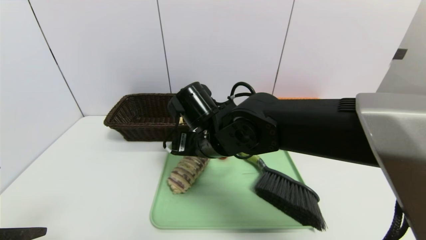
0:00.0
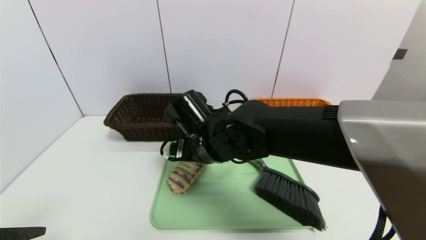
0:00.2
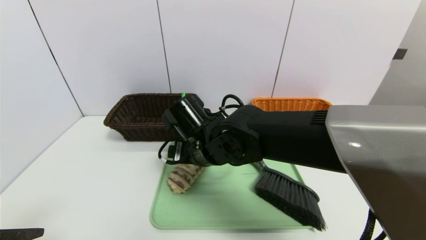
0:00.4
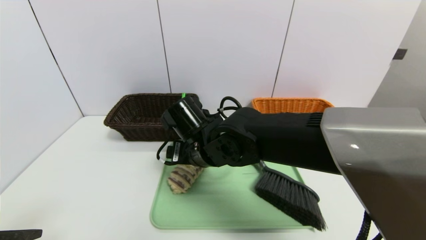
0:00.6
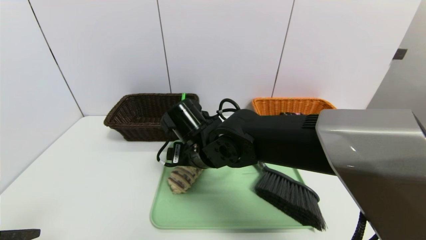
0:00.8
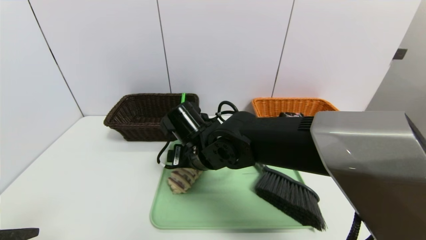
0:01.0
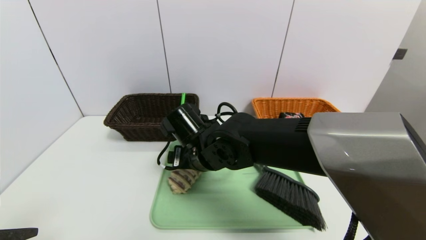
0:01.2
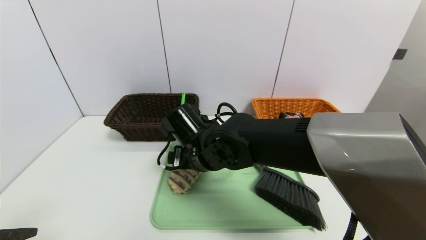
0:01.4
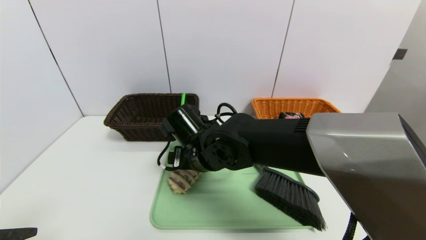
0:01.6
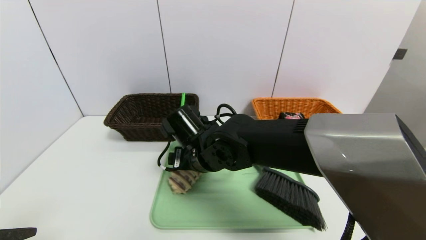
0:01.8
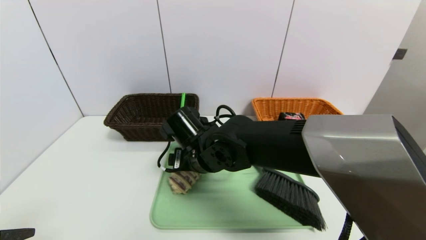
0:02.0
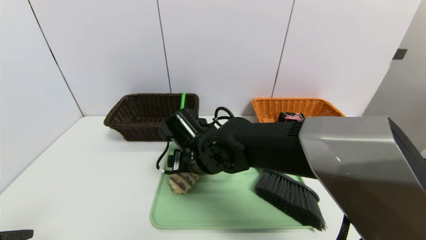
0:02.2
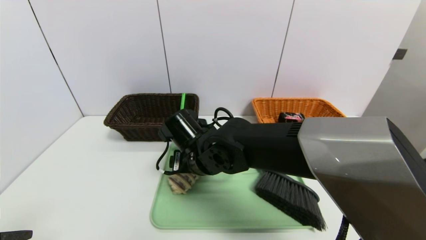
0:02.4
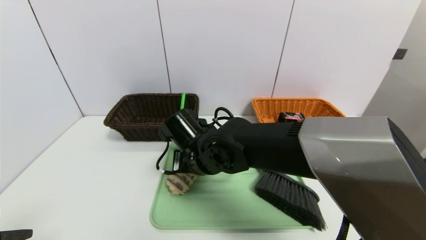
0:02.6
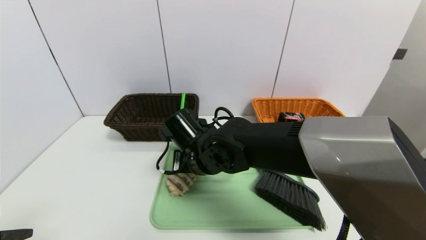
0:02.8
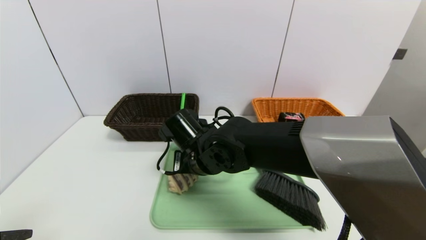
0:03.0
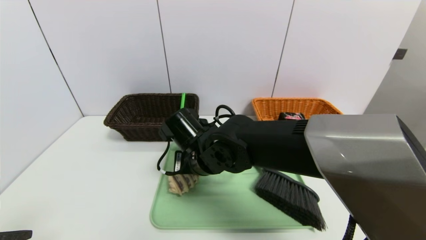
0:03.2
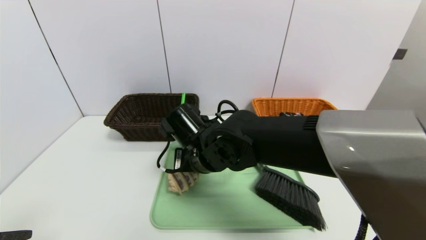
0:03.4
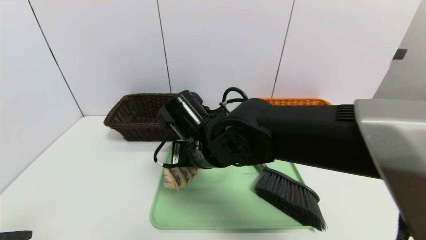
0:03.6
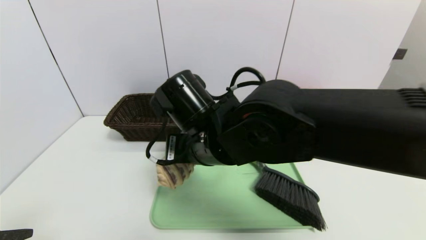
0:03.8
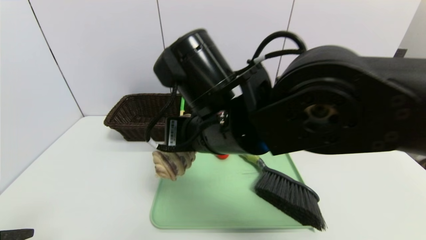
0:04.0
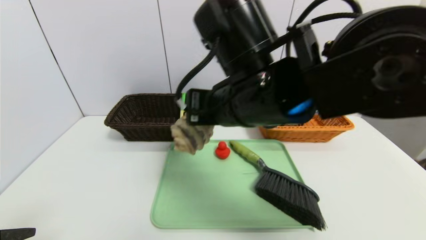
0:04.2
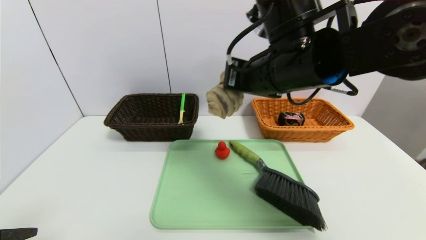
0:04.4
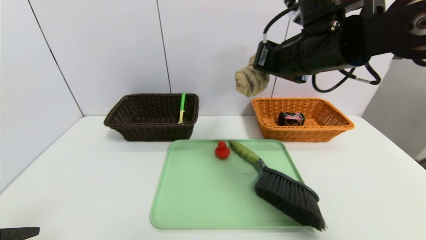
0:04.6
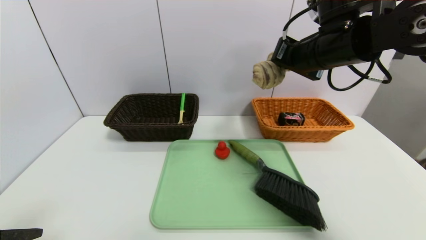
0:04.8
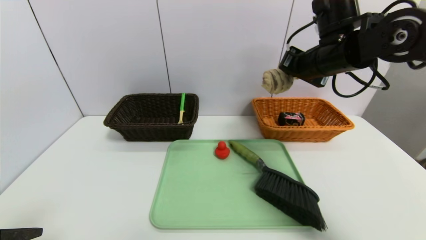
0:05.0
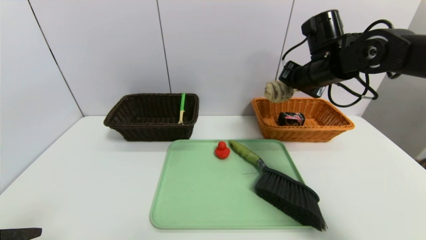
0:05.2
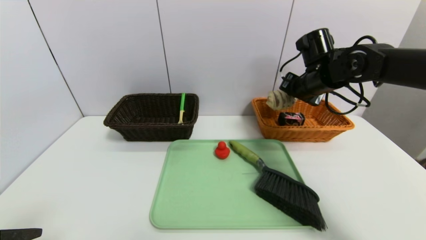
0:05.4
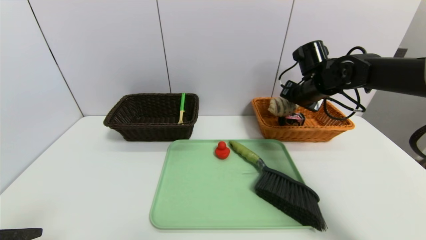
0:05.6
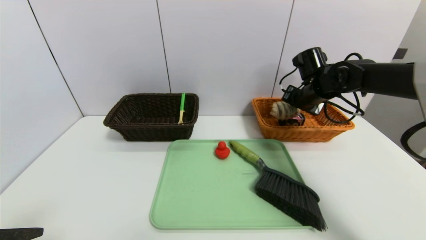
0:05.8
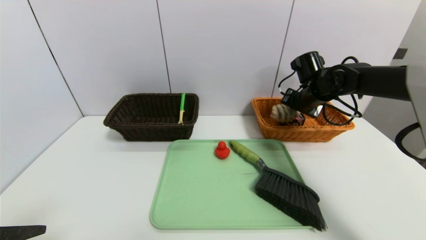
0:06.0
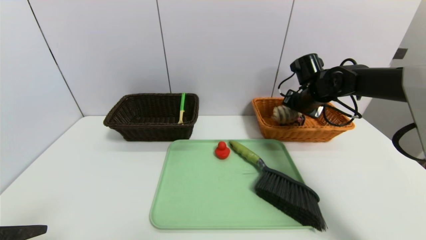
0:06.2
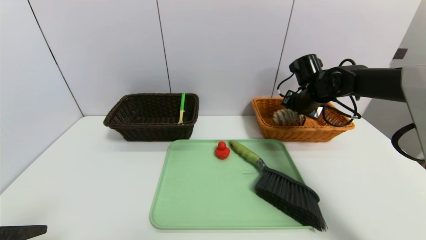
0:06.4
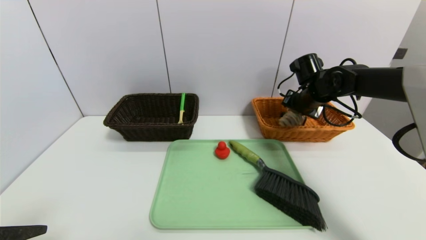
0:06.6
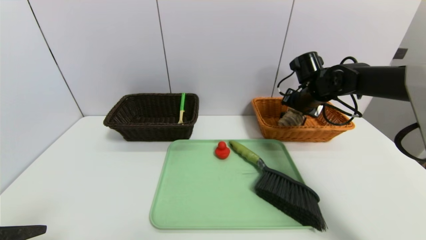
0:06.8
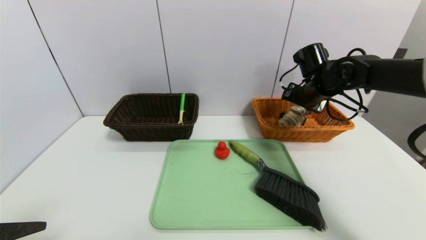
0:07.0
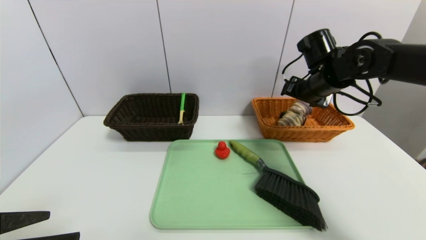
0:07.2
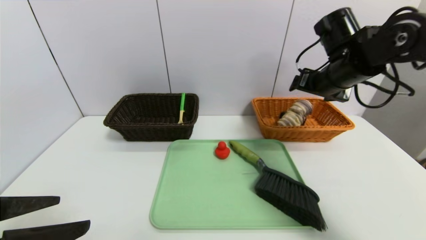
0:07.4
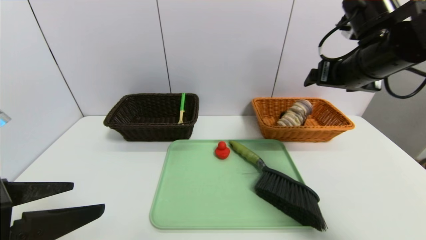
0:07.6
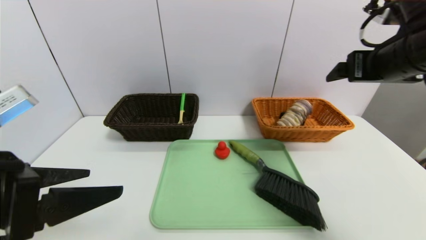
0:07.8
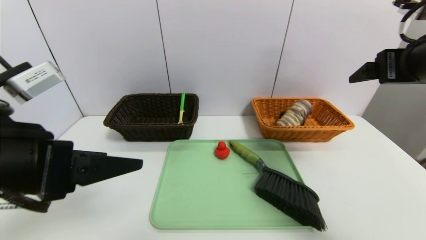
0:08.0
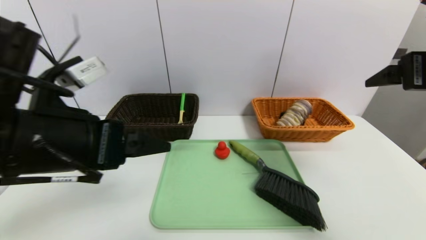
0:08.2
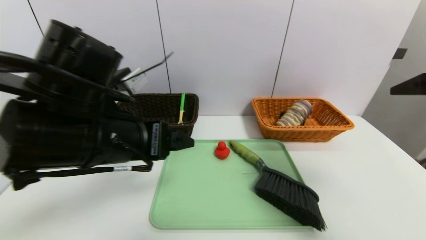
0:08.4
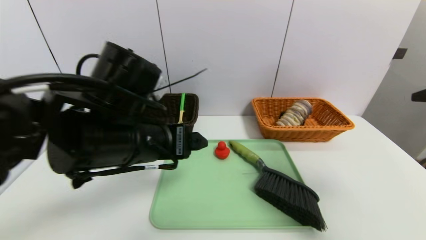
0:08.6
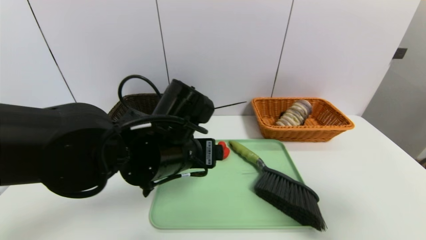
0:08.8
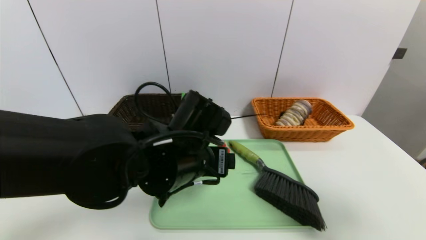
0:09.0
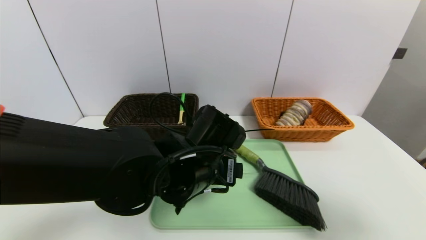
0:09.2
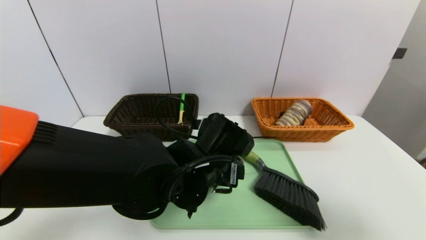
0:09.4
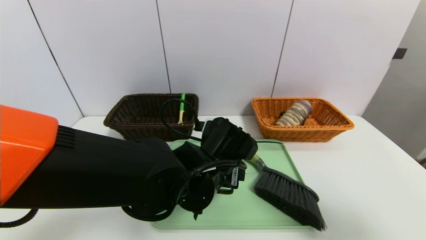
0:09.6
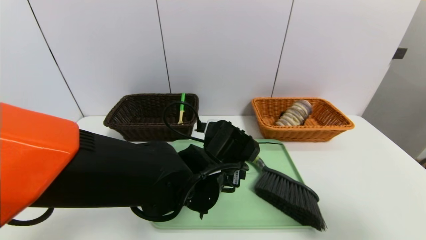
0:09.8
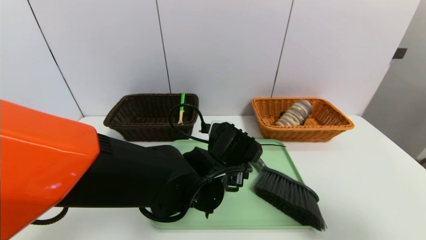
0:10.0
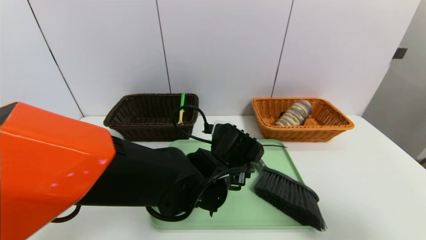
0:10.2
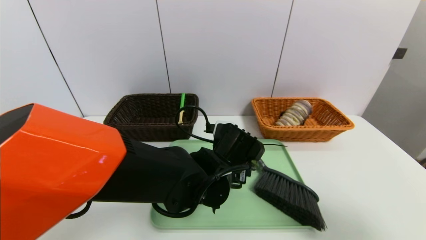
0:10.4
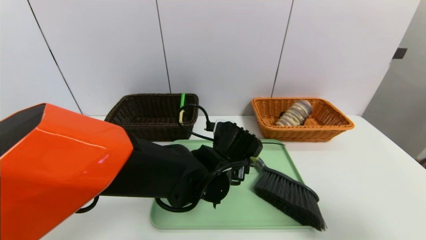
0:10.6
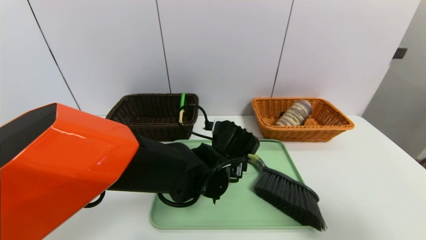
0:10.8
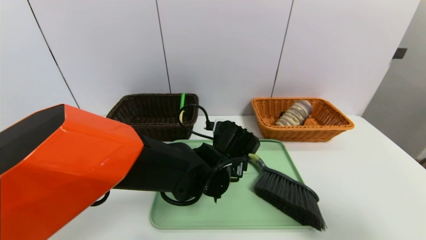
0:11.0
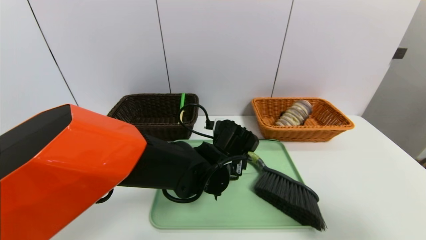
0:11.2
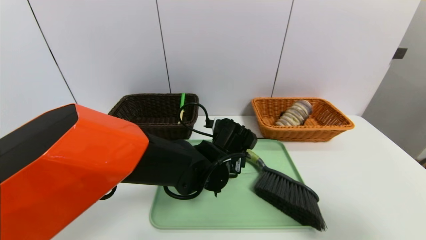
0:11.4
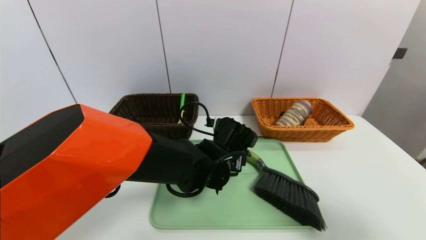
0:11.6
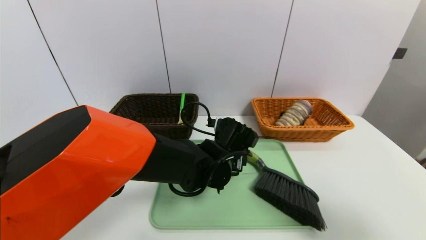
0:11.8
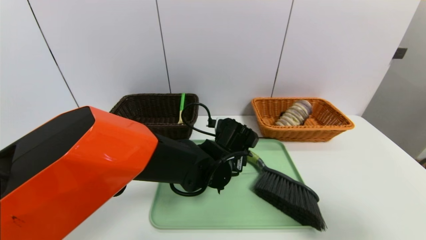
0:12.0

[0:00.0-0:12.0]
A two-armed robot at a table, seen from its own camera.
Task of the whole recording: place the food in the right basket with the right gripper, and place the non food items in the left basket with the left gripper.
Step, 0:00.0 to 0:07.0: Grasp the long bread and put it in the right basket.
0:00.0 to 0:01.6: The grippers make only small movements.
0:01.6 to 0:03.0: The right gripper closes up.
0:03.0 to 0:04.4: The right gripper heads upward and to the right, covering about 20 cm.
0:04.4 to 0:06.0: The right gripper is displaced forward, to the right and downward by roughly 25 cm.
0:06.0 to 0:07.6: The right gripper goes approximately 15 cm backward and upward, and opens.
0:07.6 to 0:09.0: The left gripper is displaced to the right and forward by roughly 25 cm, while the right gripper moves backward and to the right, roughly 25 cm.
0:09.0 to 0:10.4: The left gripper heads downward and to the right, covering about 10 cm.
0:10.4 to 0:12.0: The grippers make only small movements.

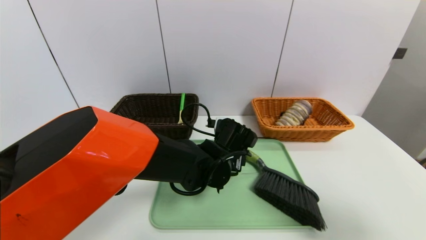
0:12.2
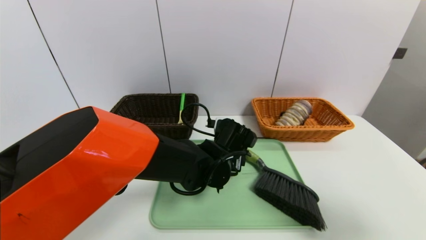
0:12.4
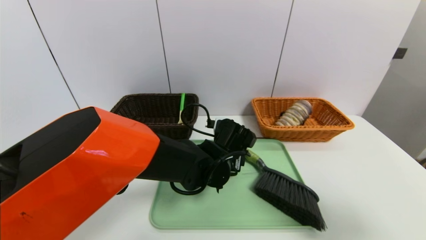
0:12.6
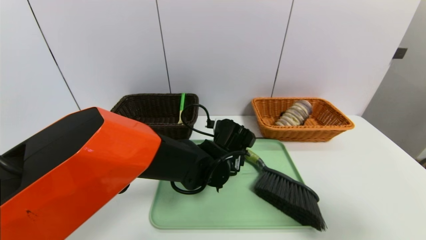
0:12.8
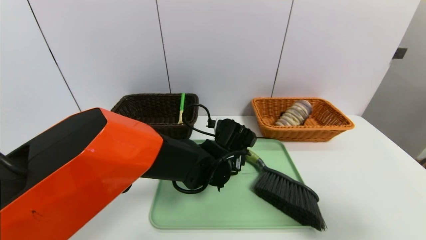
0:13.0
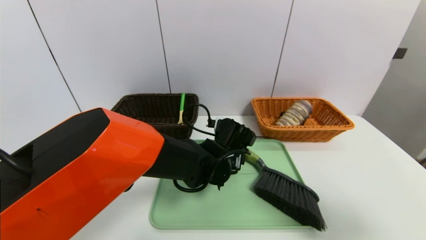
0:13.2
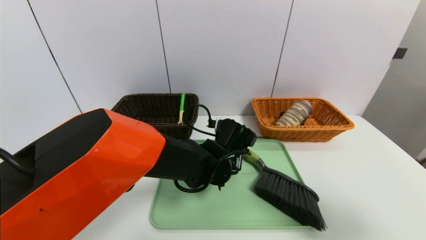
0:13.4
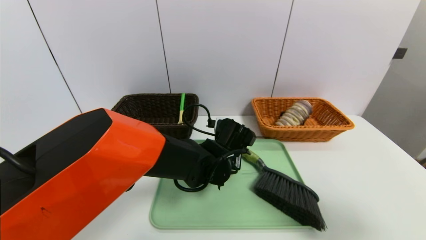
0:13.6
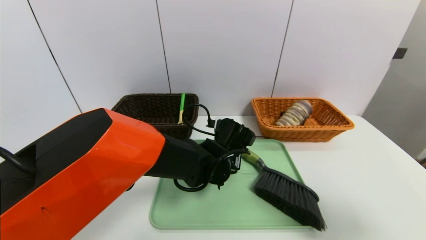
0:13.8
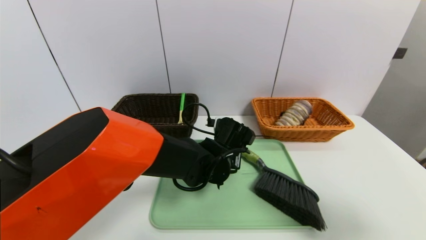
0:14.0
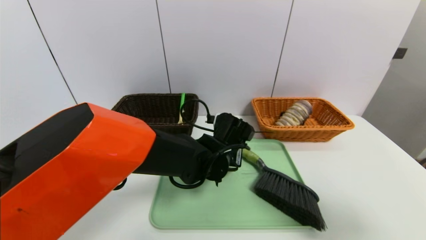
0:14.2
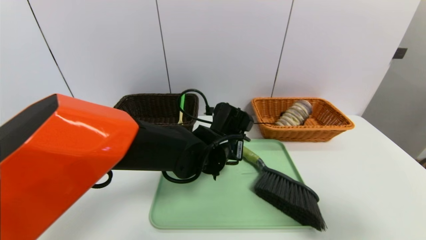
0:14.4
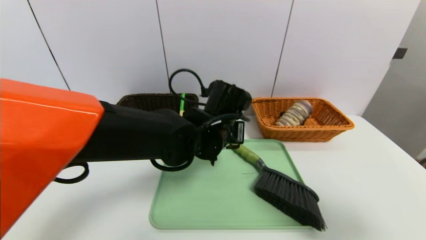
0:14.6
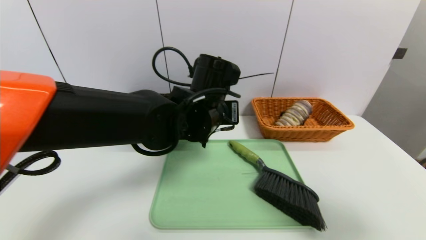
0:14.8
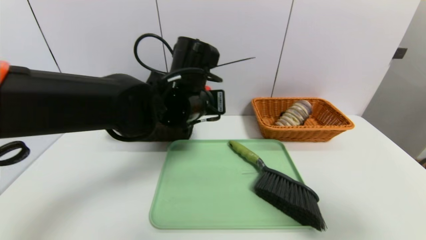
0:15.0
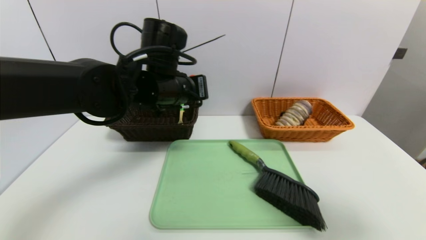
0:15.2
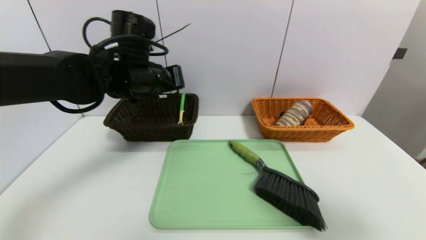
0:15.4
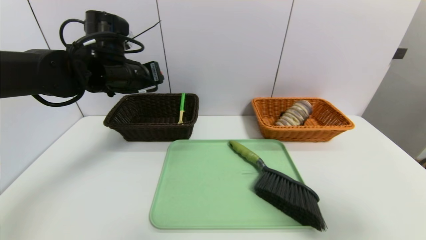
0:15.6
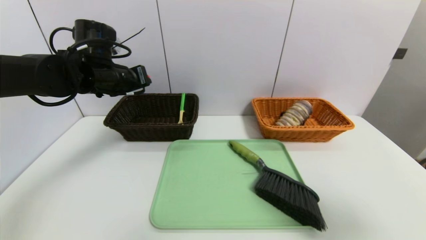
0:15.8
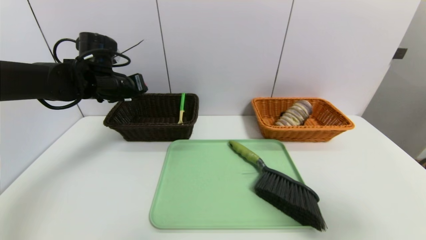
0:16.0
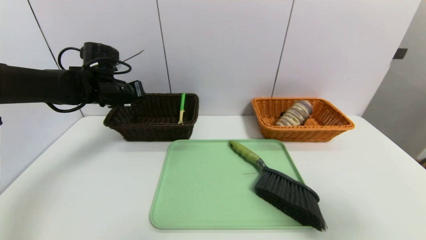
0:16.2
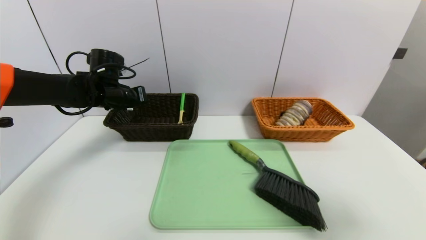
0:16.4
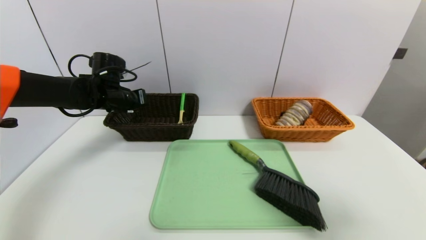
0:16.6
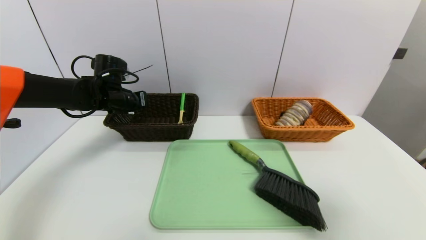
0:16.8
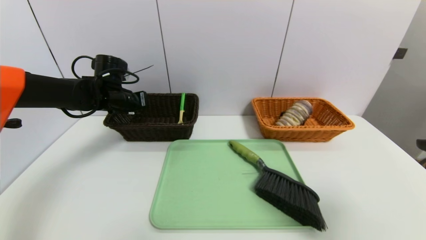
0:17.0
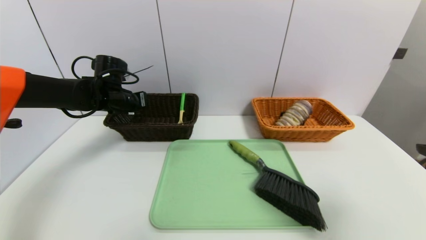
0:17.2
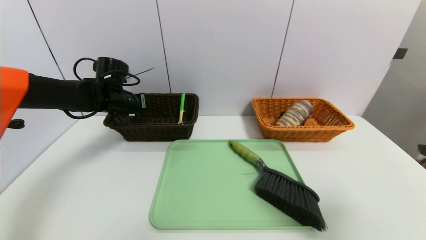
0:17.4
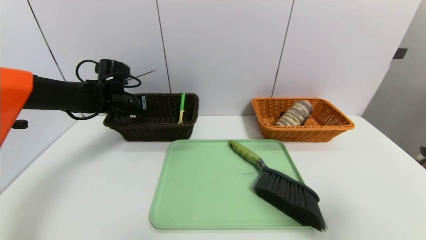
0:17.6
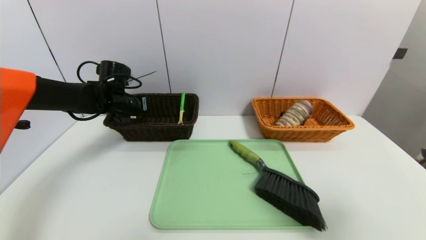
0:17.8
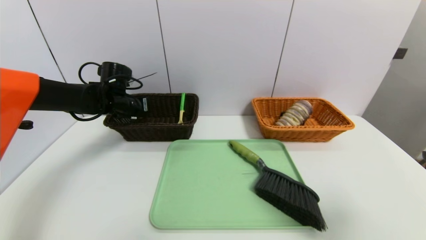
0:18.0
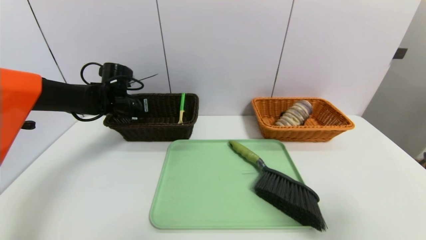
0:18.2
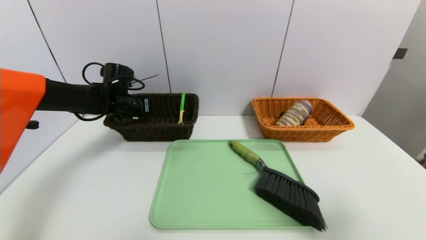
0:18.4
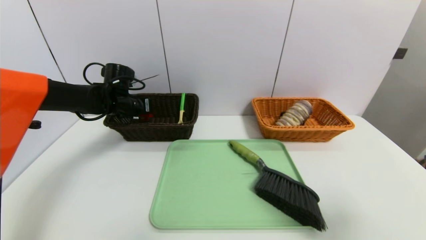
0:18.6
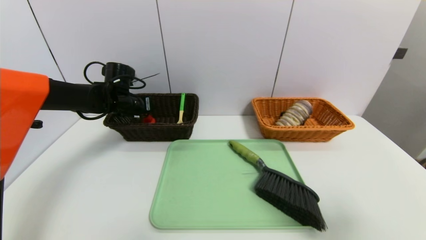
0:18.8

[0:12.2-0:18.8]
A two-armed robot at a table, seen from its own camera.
Task of the whole recording: place the food in the right basket with the right gripper, and place the non food items in the left basket with the left gripper.
0:12.2 to 0:13.8: The left gripper closes.
0:13.8 to 0:15.4: The left gripper is displaced upward and to the left by approximately 25 cm.
0:15.4 to 0:17.2: The left gripper is displaced to the left, downward and forward by some 15 cm.
0:17.2 to 0:18.8: There are only small adjustments of the grippers.
